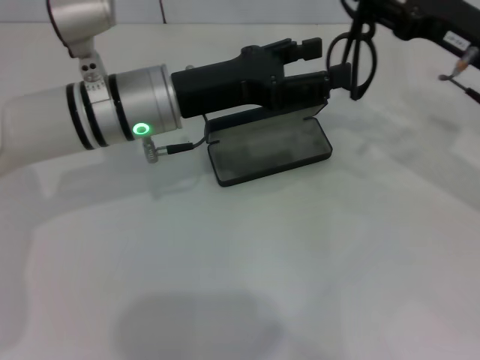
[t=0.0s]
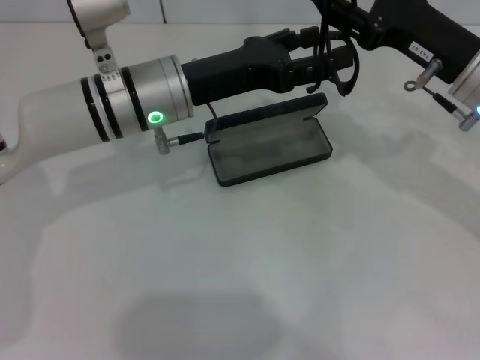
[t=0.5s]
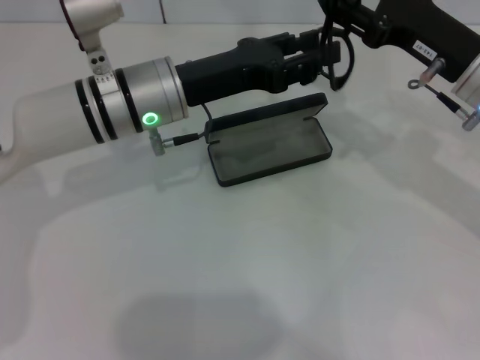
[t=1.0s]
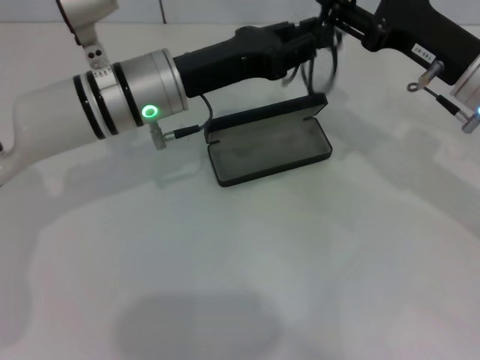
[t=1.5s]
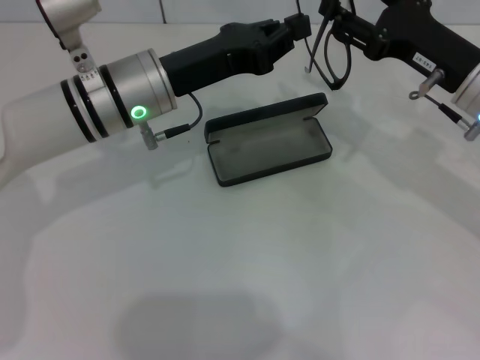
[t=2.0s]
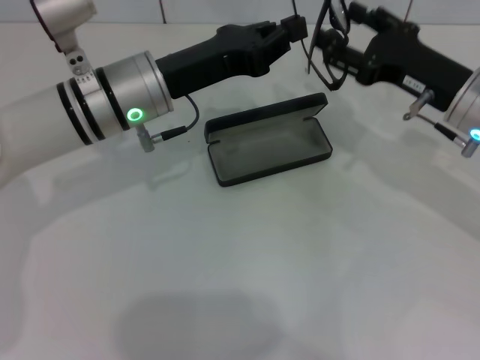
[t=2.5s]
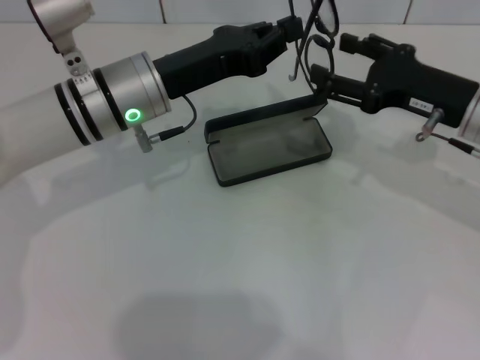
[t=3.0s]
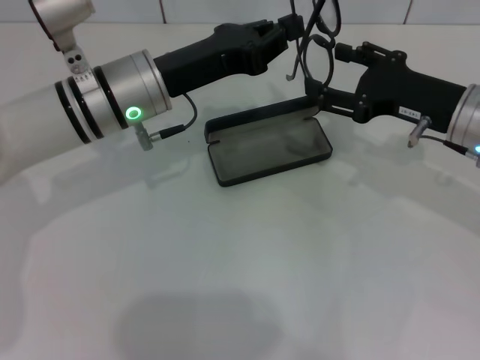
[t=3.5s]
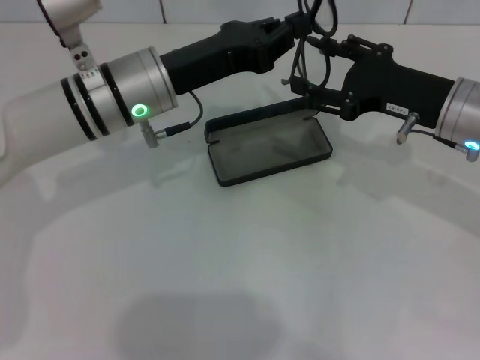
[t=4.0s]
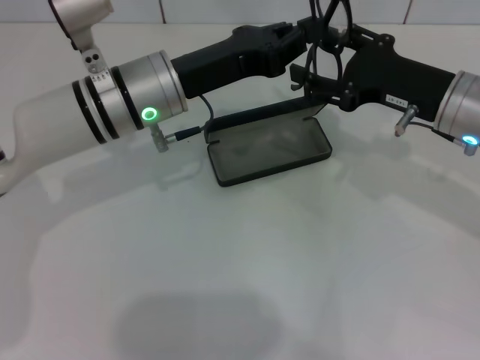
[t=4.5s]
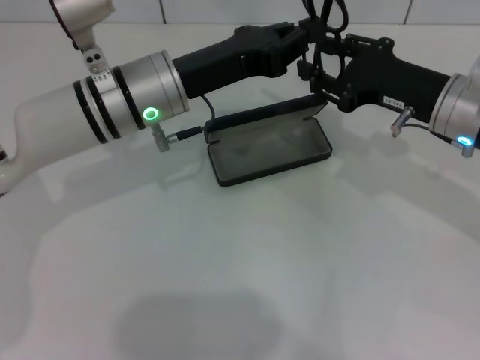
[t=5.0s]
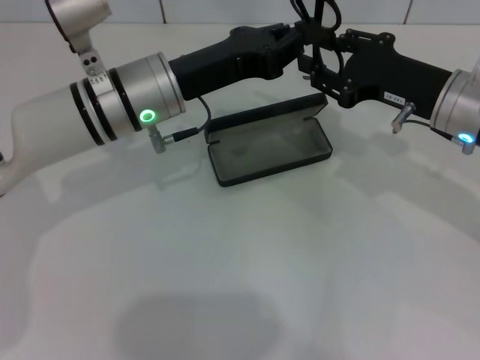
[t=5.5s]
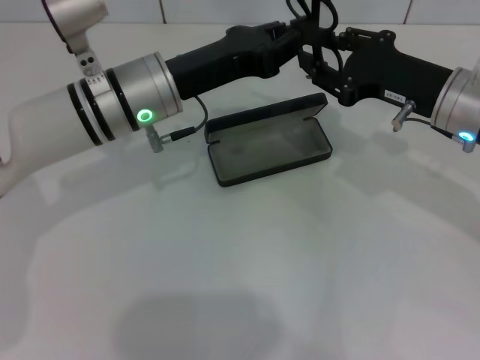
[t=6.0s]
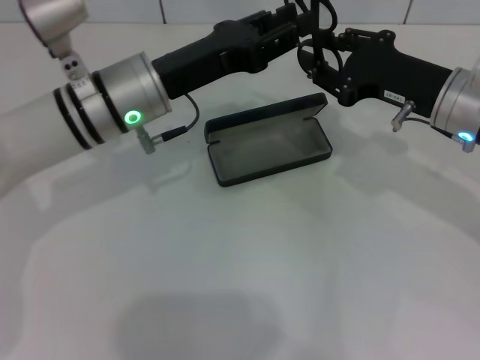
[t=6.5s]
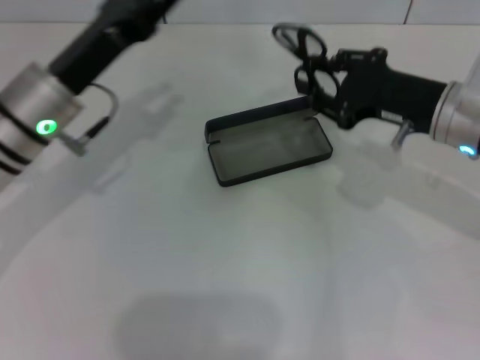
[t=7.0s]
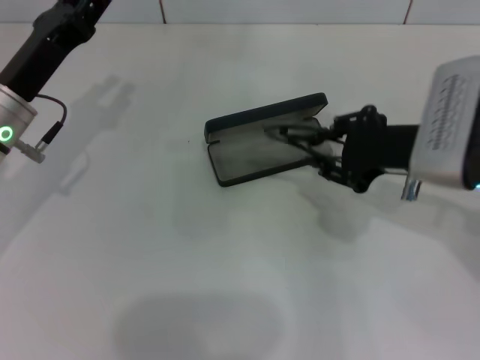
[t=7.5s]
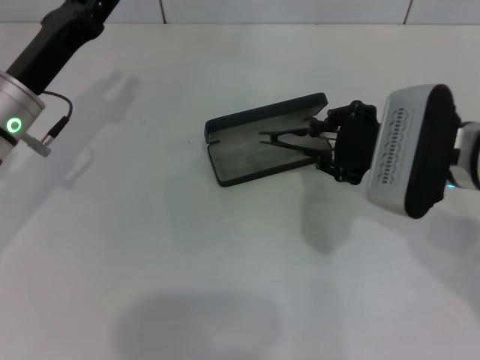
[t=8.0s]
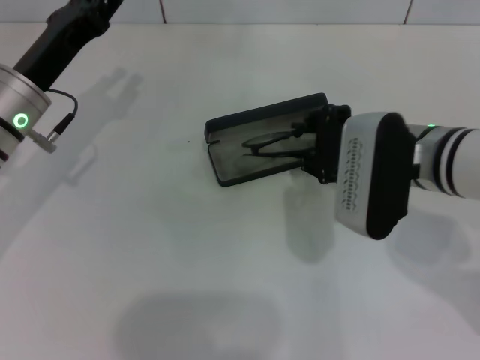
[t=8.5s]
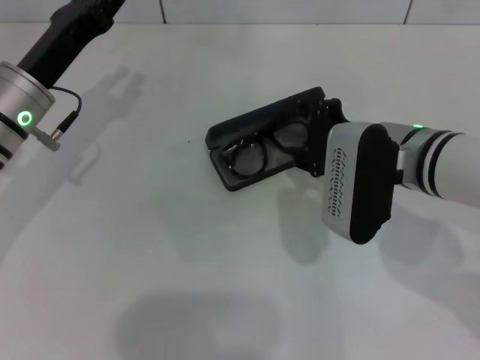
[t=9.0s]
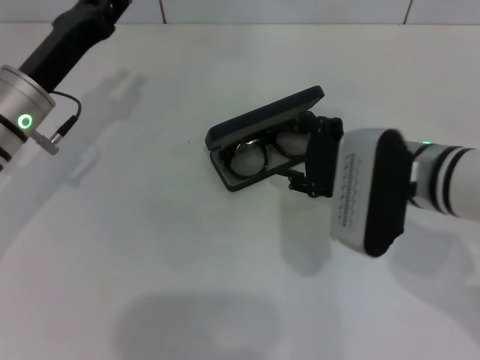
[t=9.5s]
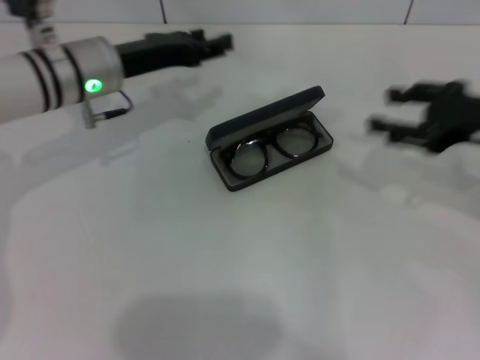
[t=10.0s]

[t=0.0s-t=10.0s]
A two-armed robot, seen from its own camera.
Step, t=0.0s to t=9.0s: Put the glasses into the case with your right hand.
t=0.0s to t=2.0s: The left gripper closes.
t=4.0s to t=6.0s: The right gripper closes up.
t=6.0s to t=8.0s: The right gripper shifts by about 5 cm, while the left gripper moves to the left, some 10 cm, and opens its fingers.
t=8.0s to t=10.0s: The right gripper heads to the right, covering some 10 cm, while the left gripper moves forward and to the right, approximately 10 cm.

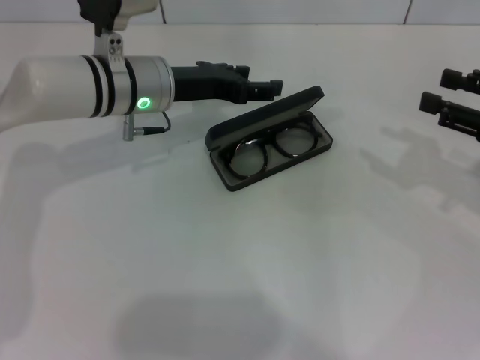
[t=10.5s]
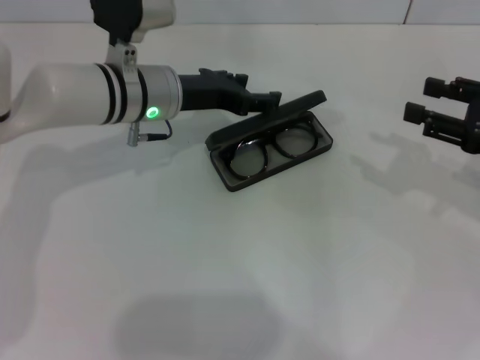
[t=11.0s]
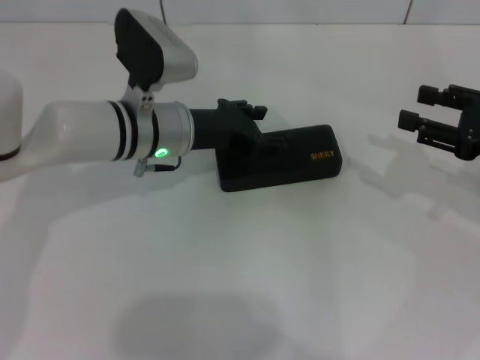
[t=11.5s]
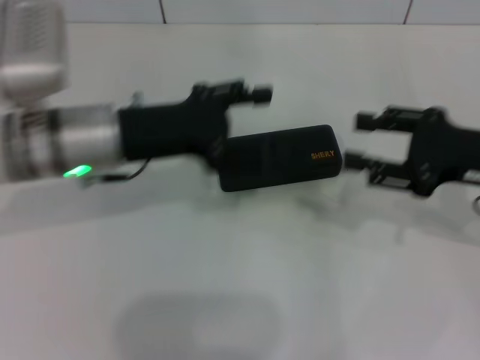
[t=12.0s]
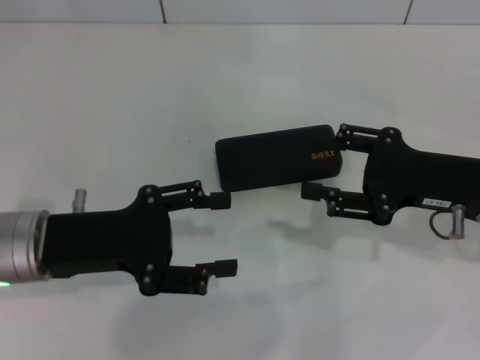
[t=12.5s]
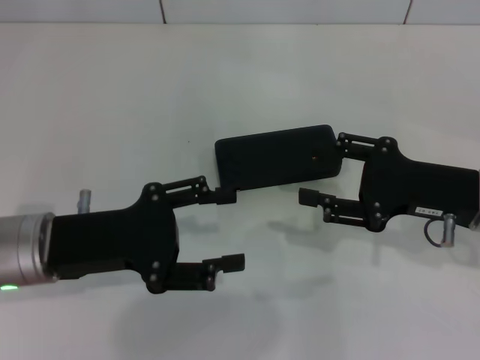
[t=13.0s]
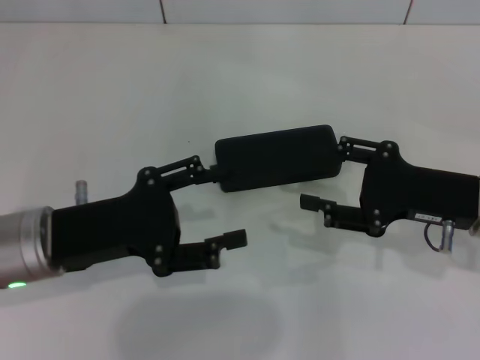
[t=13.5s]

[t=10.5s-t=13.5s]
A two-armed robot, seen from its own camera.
t=10.5s to t=12.0s: The left gripper is displaced backward by about 10 cm. Meanwhile the right gripper is displaced to the left by roughly 5 cm.
t=12.0s to t=13.5s: The left gripper travels backward by about 10 cm, while the right gripper shifts by some 5 cm.

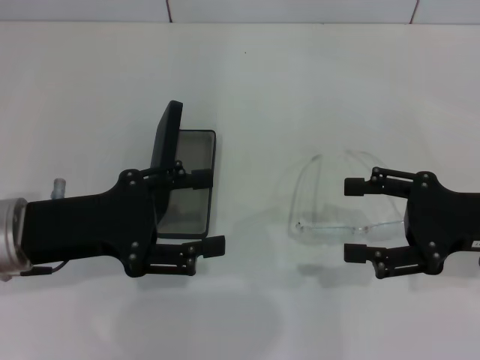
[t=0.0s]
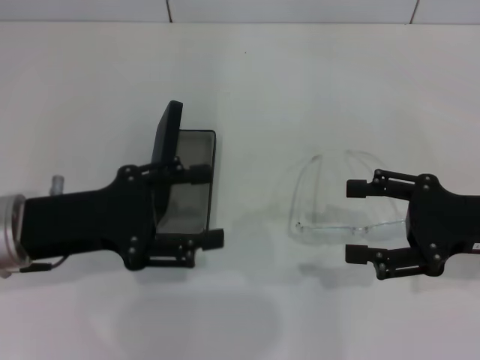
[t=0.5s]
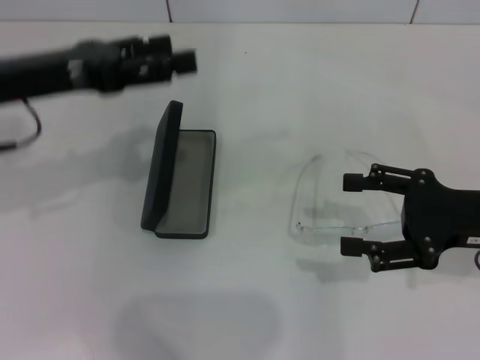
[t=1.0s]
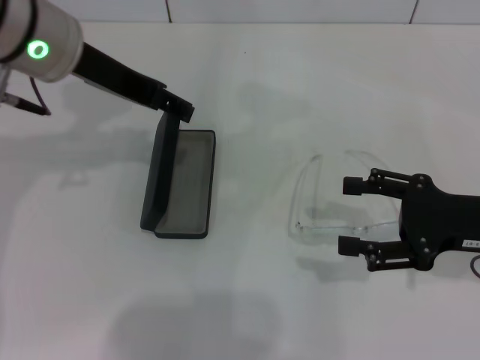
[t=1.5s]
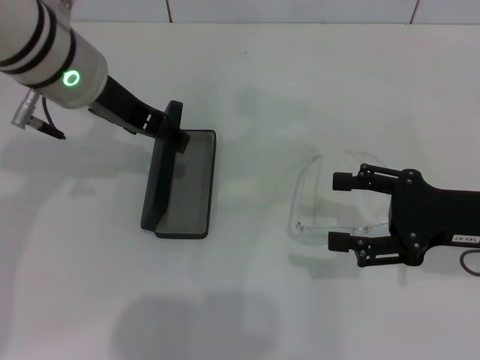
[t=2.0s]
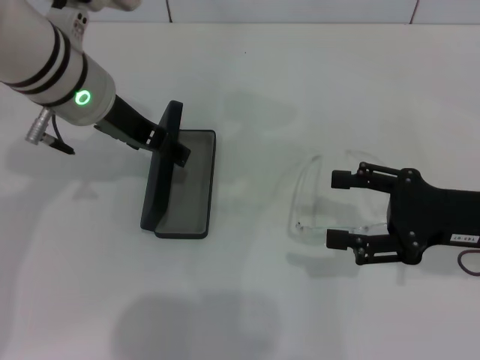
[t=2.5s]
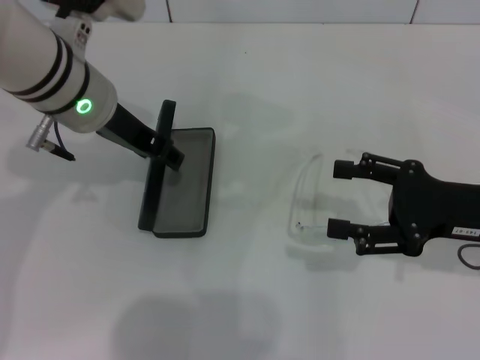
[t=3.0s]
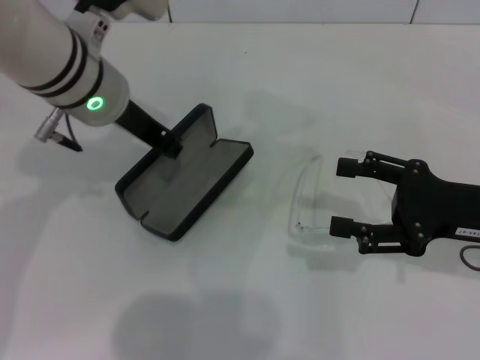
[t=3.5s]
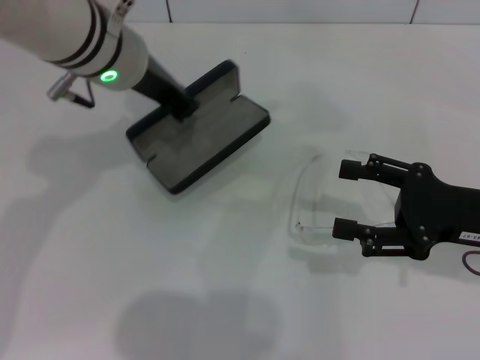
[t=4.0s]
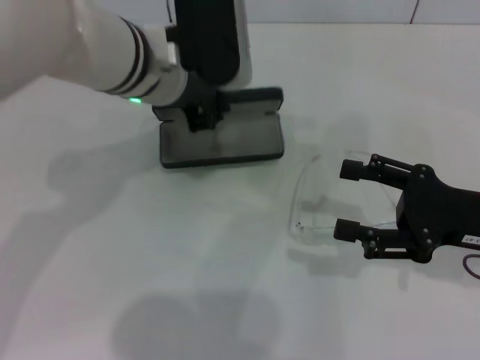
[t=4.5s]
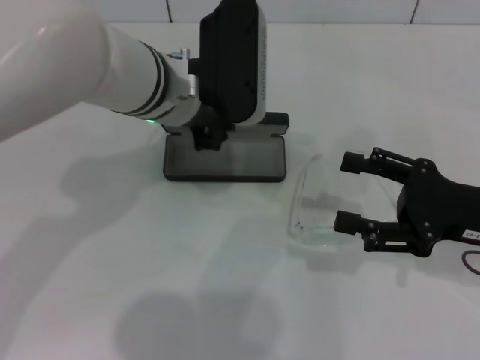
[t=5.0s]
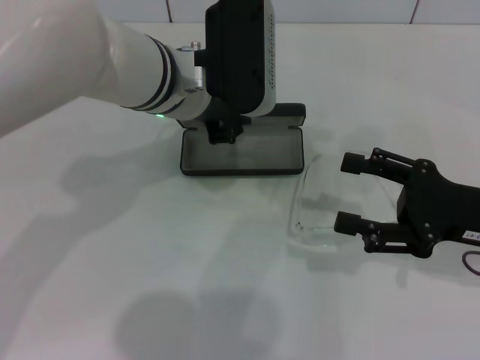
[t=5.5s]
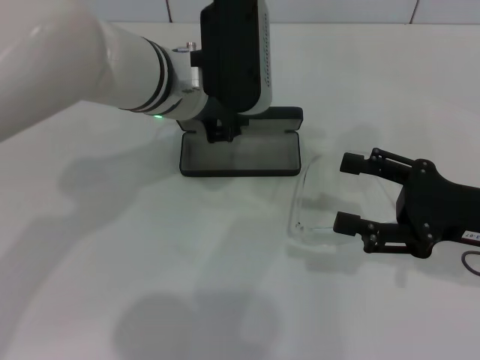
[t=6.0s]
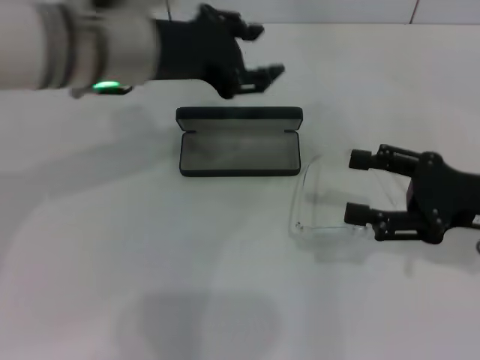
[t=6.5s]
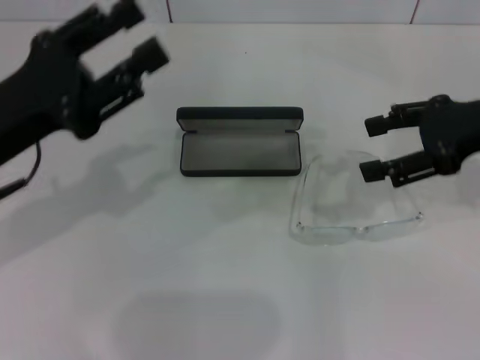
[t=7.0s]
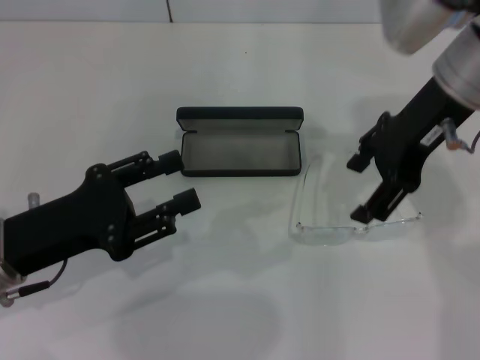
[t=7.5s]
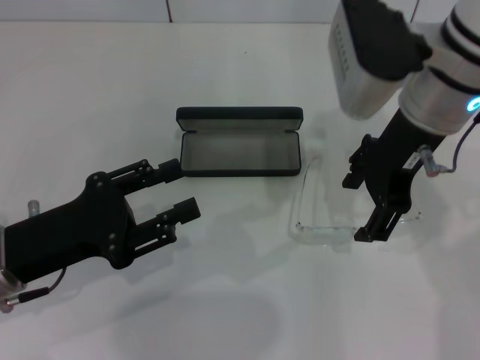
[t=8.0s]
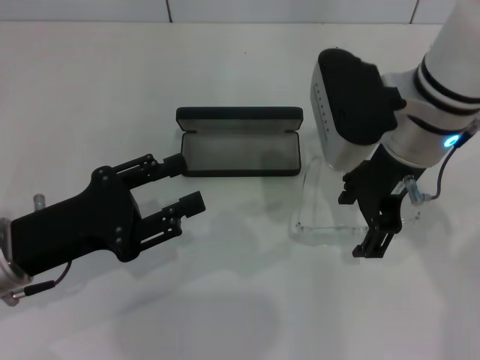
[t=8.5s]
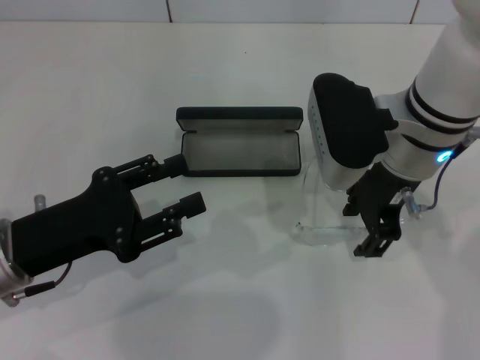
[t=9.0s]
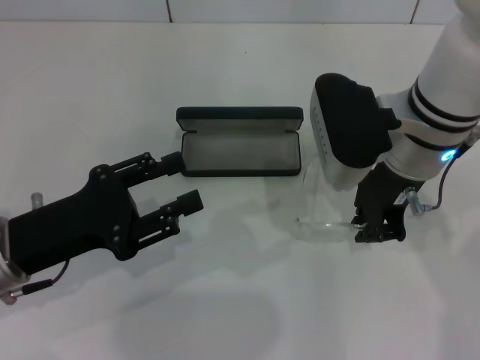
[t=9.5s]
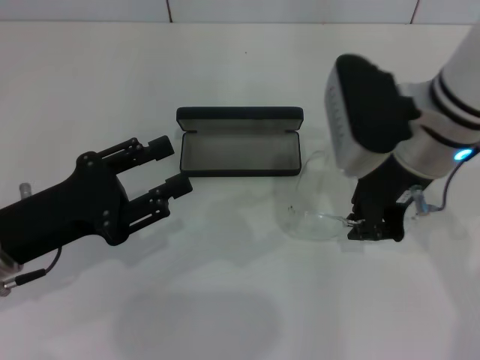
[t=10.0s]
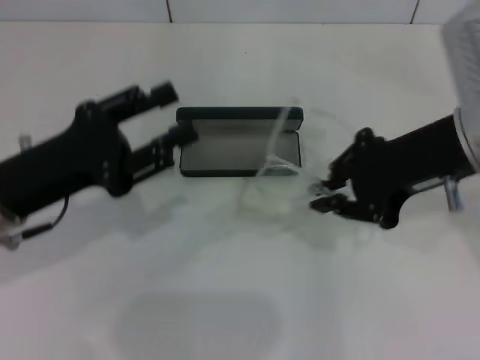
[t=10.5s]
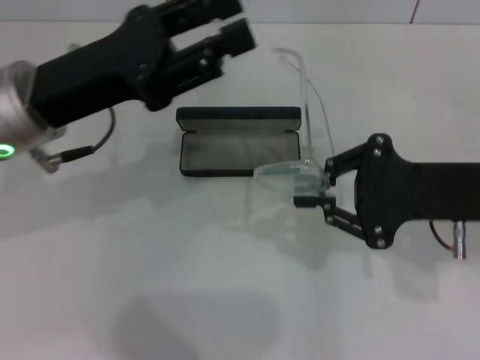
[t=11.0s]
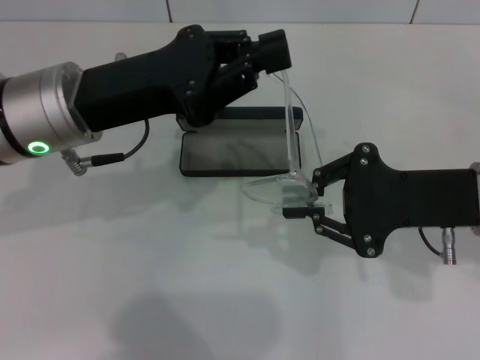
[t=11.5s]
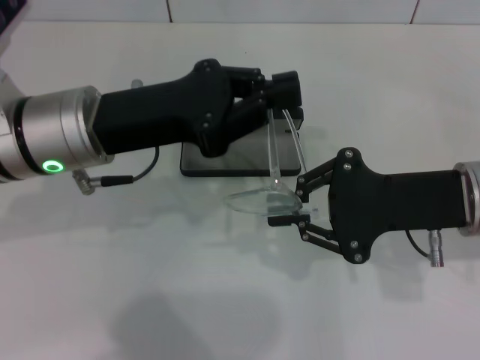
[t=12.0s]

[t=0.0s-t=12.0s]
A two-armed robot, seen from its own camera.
Step, t=0.0s to t=3.0s: Grab the glasses case with your left hand.
Step, t=3.5s to t=6.0s: Place the glasses case in the center of the table with your left hand.
Step, t=6.5s to t=9.0s: Grab the eyeglass frame with your right hand.
t=0.0s to t=2.0s: The left gripper shifts roughly 15 cm forward, upward and to the right.
t=2.0s to t=4.0s: The left gripper closes its fingers.
t=4.0s to t=6.0s: The left gripper shifts by approximately 5 cm.
t=6.0s to t=8.0s: The right gripper moves to the left, upward and forward, about 20 cm; the left gripper moves to the left, backward and downward, approximately 25 cm, and opens.
t=8.0s to t=10.0s: The right gripper closes its fingers.
t=10.0s to t=12.0s: The left gripper heads to the right, forward and upward, covering some 15 cm, and closes. Meanwhile the right gripper shifts some 10 cm to the right and backward.
